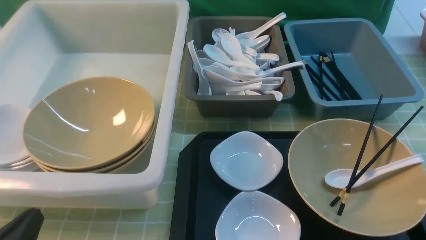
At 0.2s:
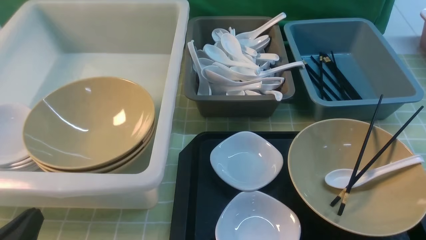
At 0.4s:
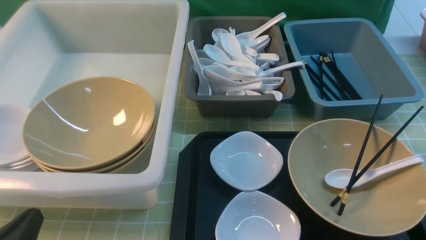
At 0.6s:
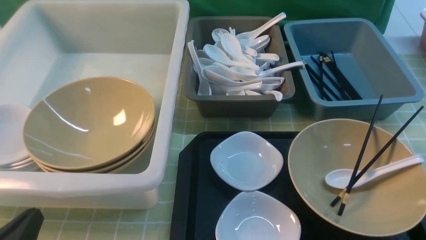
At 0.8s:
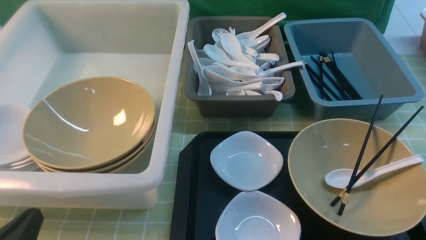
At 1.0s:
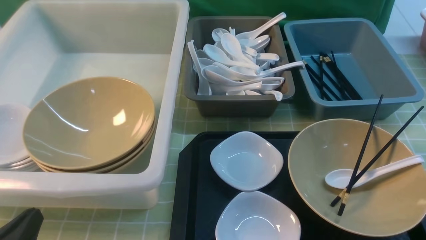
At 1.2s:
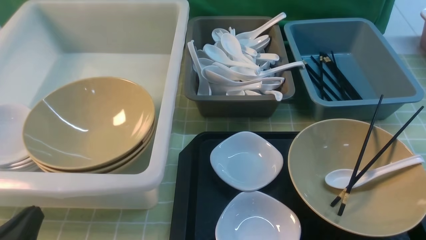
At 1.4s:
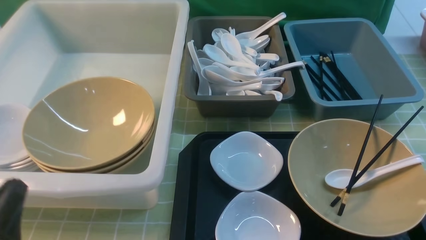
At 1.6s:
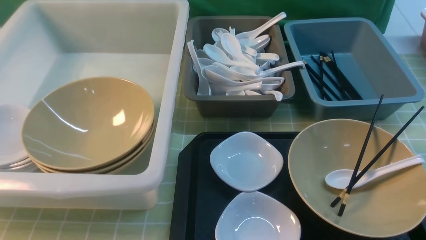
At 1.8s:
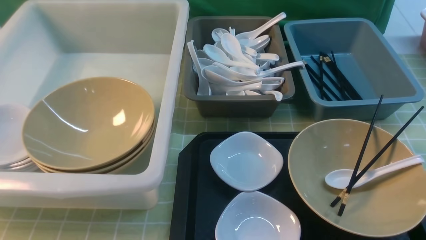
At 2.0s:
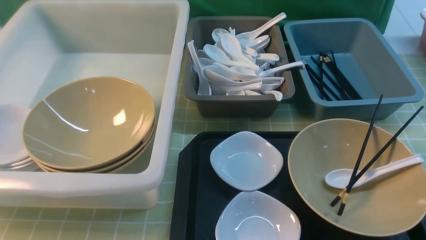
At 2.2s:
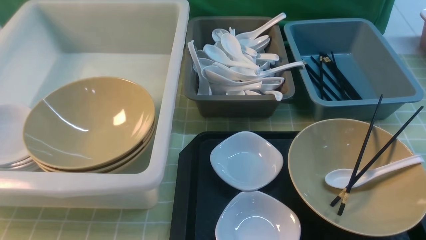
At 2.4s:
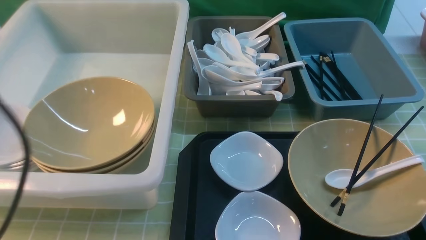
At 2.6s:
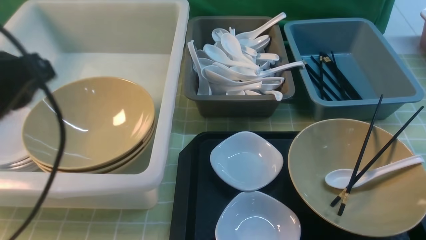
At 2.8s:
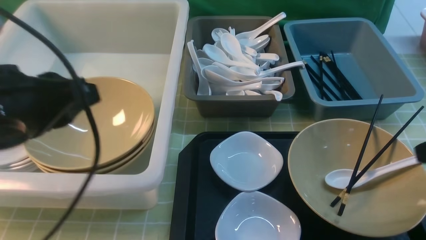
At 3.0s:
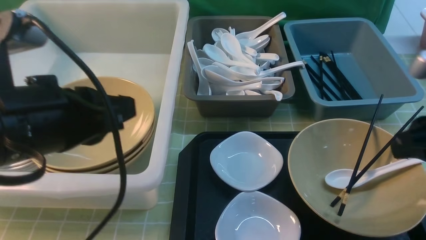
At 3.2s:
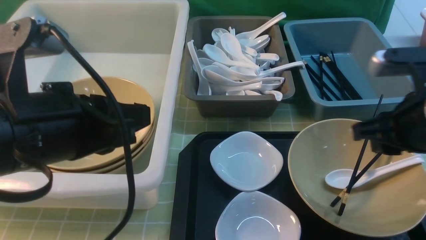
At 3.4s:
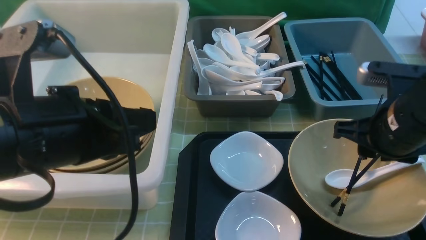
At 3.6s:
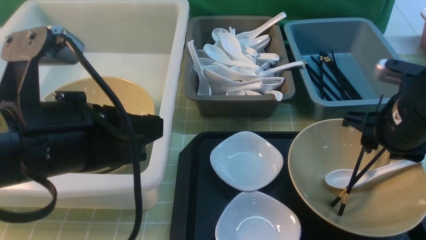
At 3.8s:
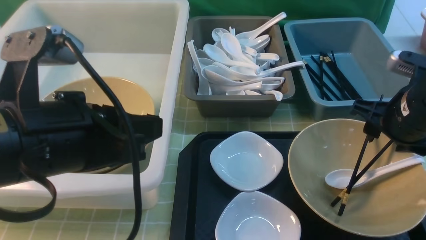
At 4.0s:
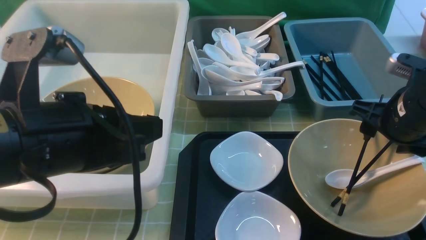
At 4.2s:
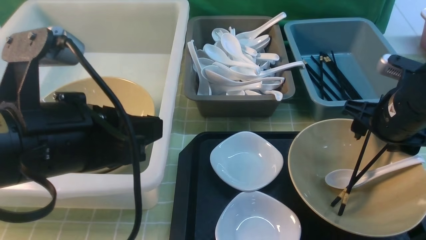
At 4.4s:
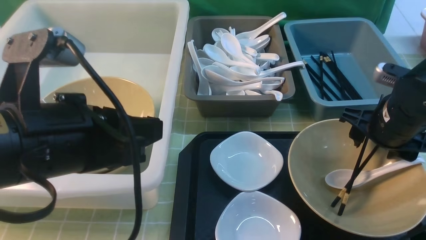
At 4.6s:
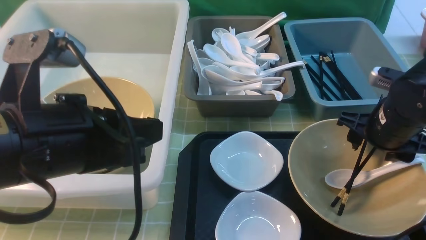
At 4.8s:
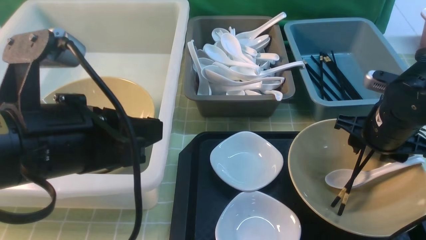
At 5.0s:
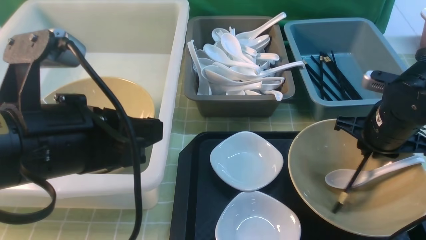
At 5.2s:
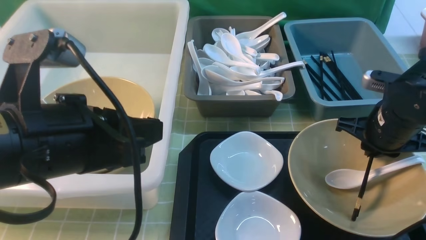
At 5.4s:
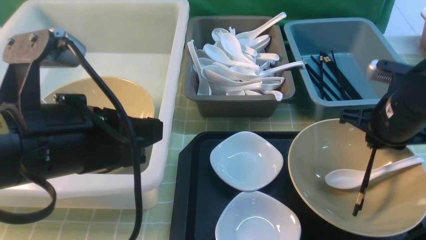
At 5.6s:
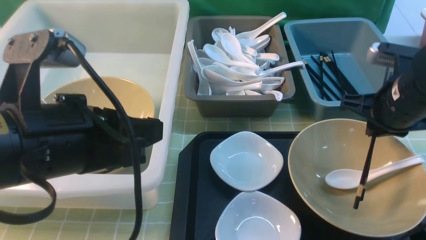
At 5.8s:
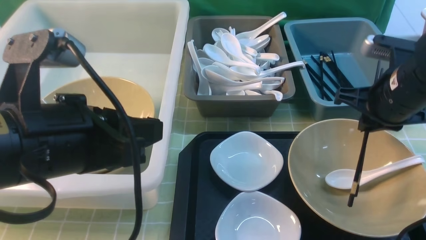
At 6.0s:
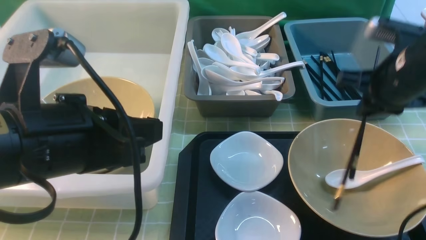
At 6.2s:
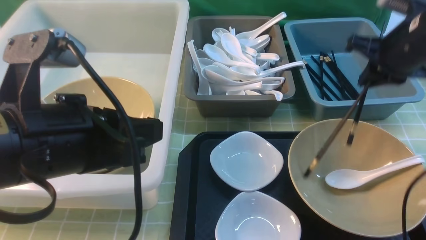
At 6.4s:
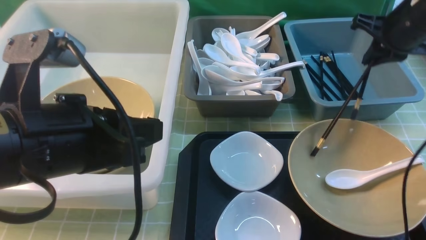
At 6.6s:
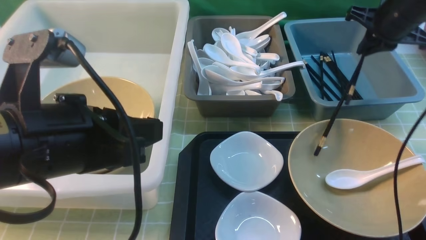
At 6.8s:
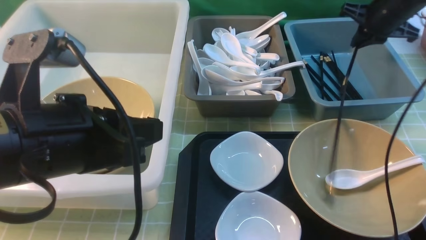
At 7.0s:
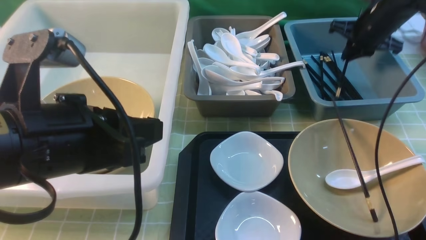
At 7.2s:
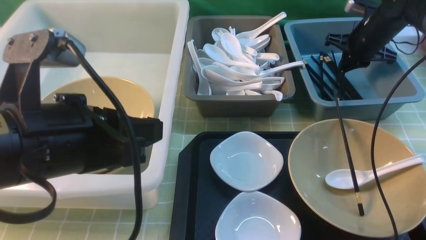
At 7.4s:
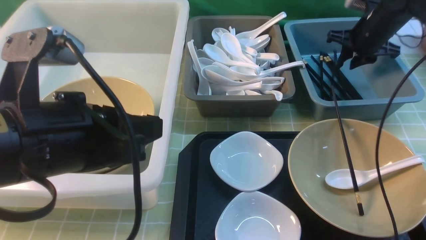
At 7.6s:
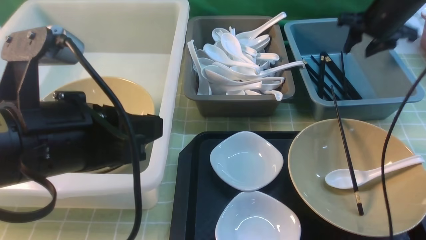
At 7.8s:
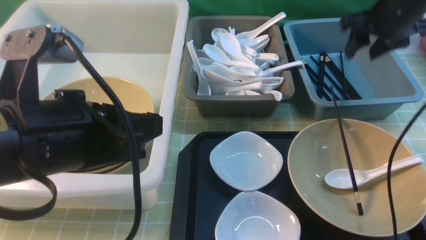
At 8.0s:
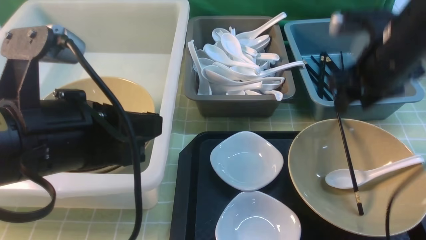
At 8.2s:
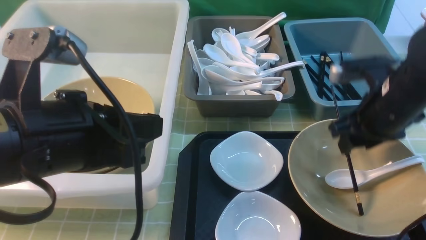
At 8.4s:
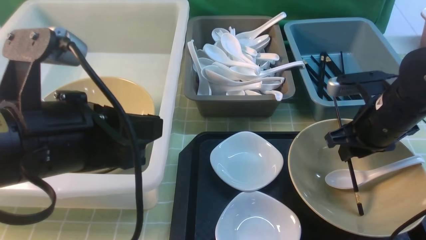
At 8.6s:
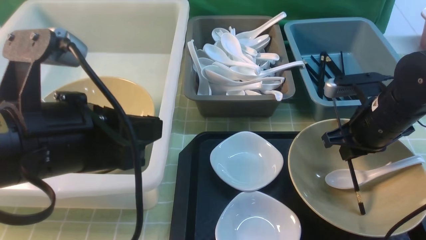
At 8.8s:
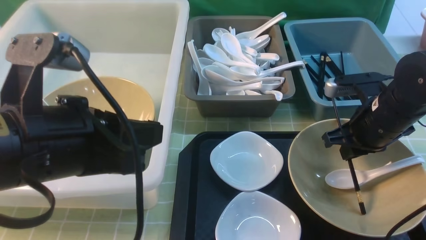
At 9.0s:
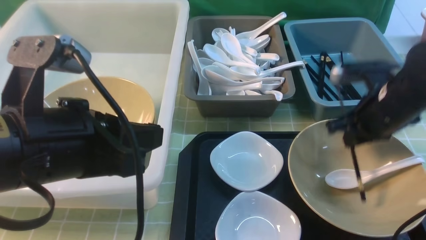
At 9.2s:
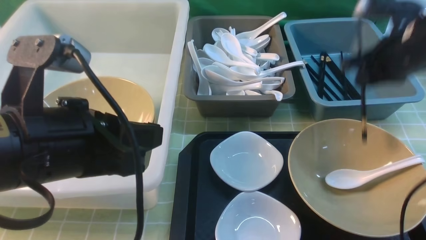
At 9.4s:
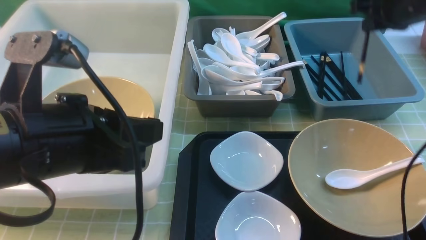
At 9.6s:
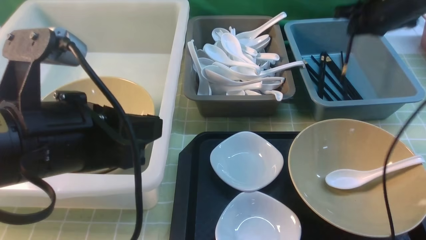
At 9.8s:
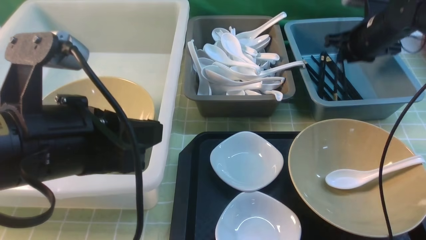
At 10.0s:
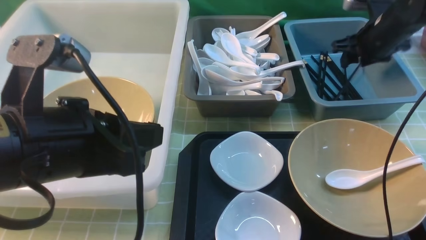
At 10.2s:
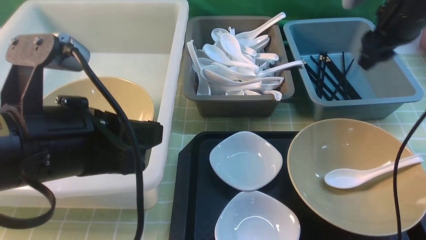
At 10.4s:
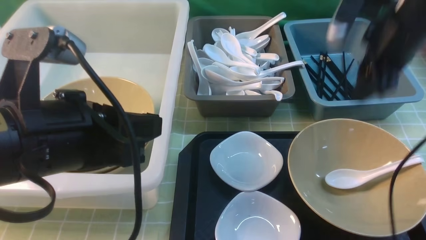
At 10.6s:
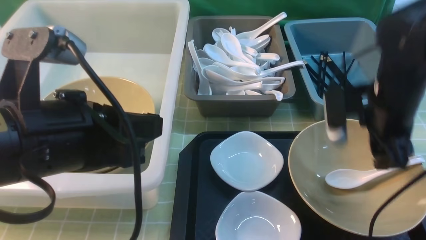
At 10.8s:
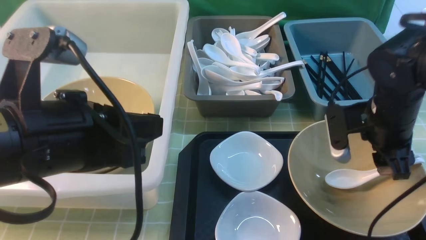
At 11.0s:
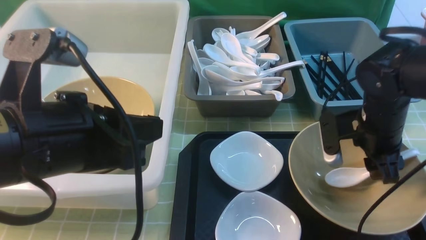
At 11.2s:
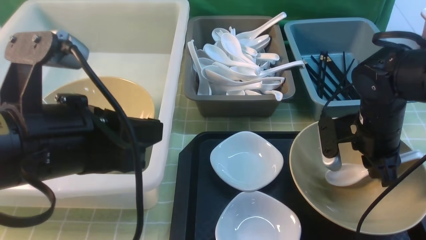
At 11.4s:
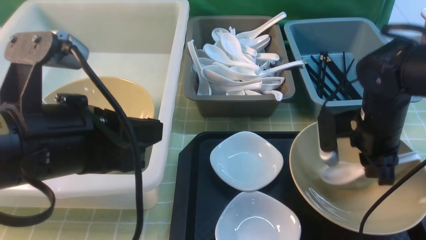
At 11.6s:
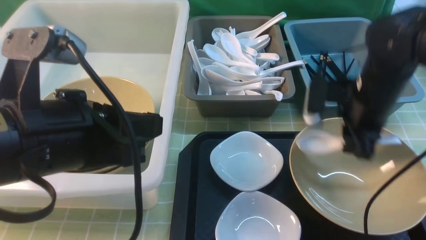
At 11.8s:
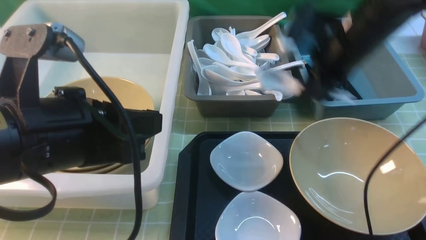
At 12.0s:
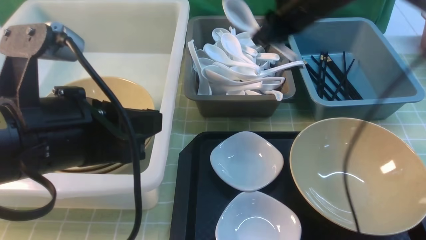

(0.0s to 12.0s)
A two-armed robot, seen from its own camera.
Task of the whole recording: on green table put chopsticks spoon bowls plates into blue grey white boxes.
Step, 0.0s - 5.4s: use the right arm to grab a chopstick.
Step, 5.6s - 7.4s: use the right arm to put a chopstick into the small storage box on the right.
Step, 7.6s - 9.0s: use the right arm to grab a chopstick.
Step, 9.2s - 10.0s: use the right arm to put a chopstick into the small storage box on the right.
Step, 10.4s - 11.4s: use the right arm to grab the soup spoon in the middle.
1.6s - 3.0s: The right gripper travels forward and upward by approximately 20 cm. Meanwhile the left gripper travels upward, forward and to the right by about 20 cm.
3.0s - 4.4s: The right gripper heads forward and downward, covering roughly 15 cm, and opens its fingers.
4.4s - 6.0s: The right gripper heads upward, covering some 5 cm, and closes up.
6.0s - 7.6s: The right gripper travels forward by roughly 20 cm, and opens its fingers.
7.6s - 9.0s: The right gripper travels backward by some 15 cm, and closes its fingers.
9.0s - 10.4s: The right gripper is displaced upward and forward by some 10 cm, and opens its fingers.
10.4s - 12.0s: The right gripper goes about 10 cm to the left, goes downward and returns, some 10 cm each way, and closes.

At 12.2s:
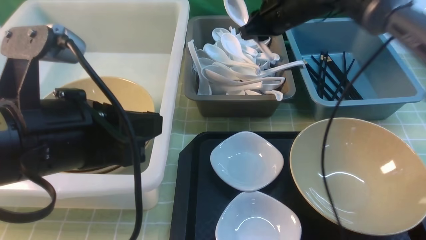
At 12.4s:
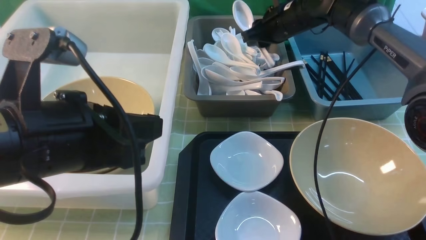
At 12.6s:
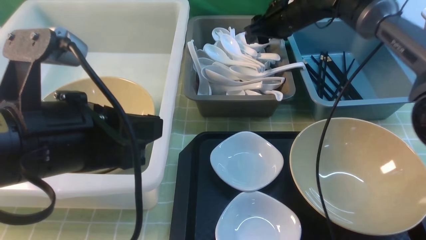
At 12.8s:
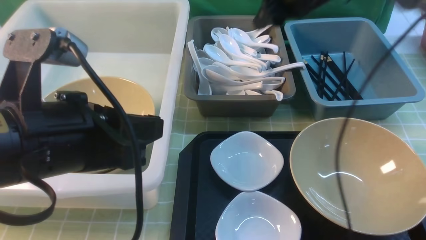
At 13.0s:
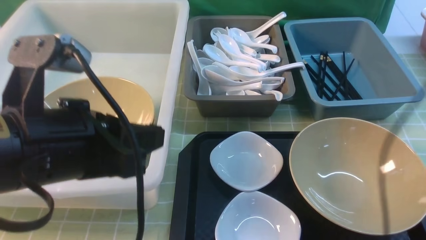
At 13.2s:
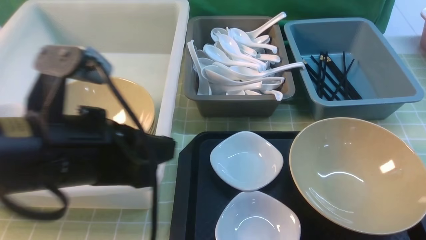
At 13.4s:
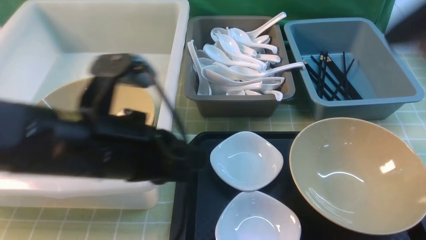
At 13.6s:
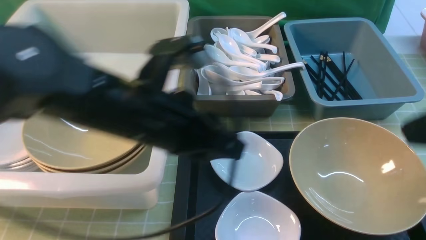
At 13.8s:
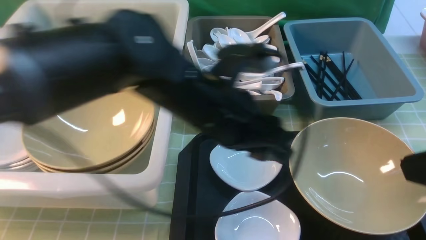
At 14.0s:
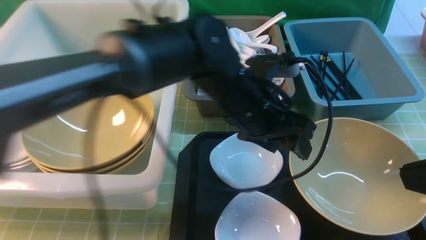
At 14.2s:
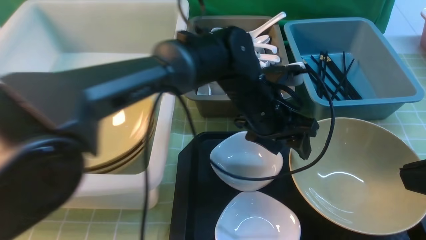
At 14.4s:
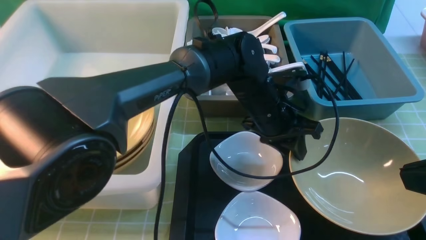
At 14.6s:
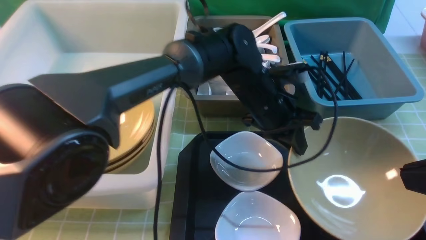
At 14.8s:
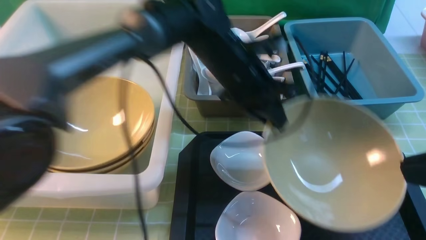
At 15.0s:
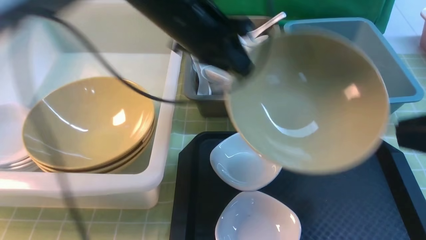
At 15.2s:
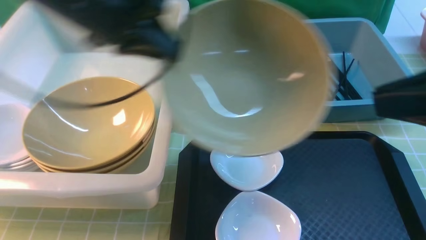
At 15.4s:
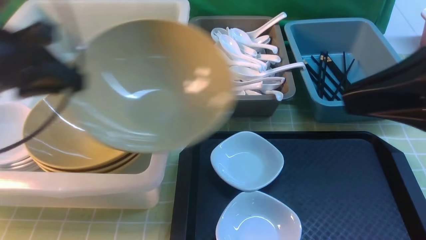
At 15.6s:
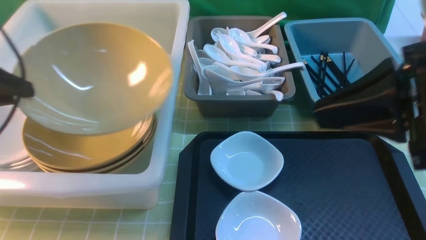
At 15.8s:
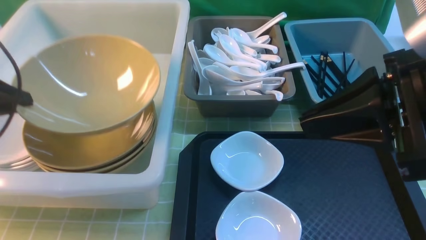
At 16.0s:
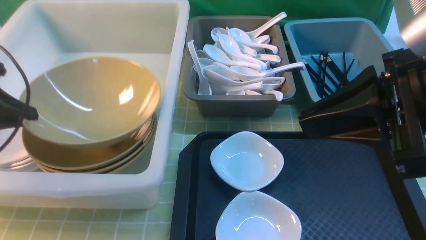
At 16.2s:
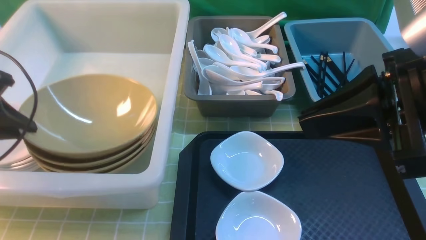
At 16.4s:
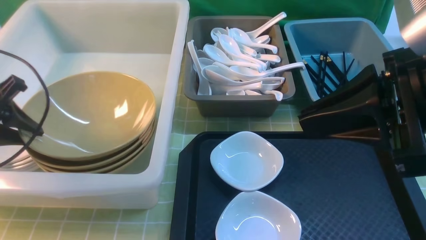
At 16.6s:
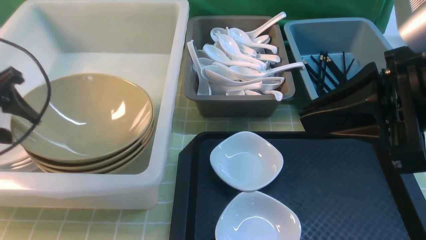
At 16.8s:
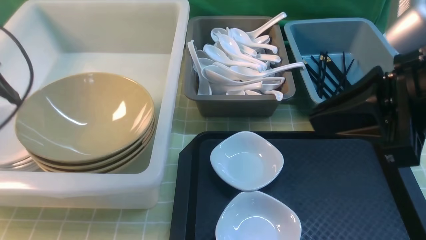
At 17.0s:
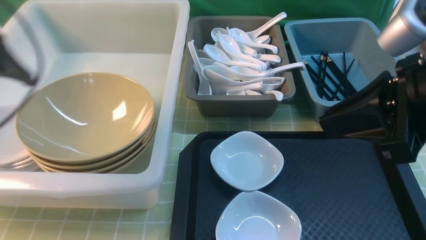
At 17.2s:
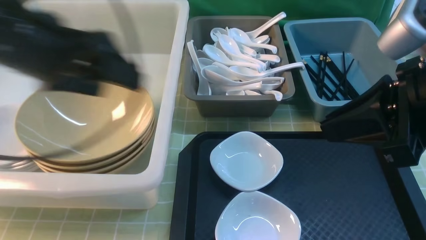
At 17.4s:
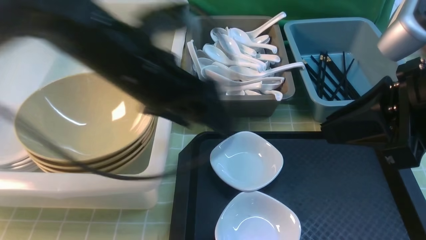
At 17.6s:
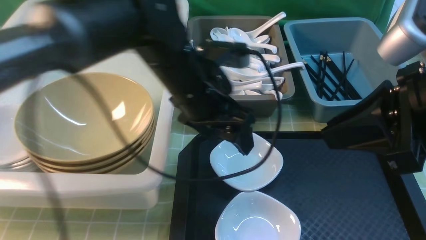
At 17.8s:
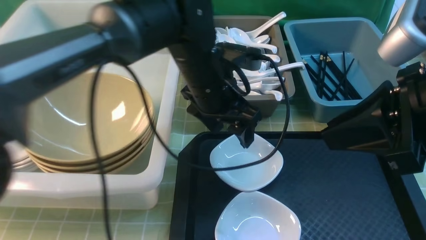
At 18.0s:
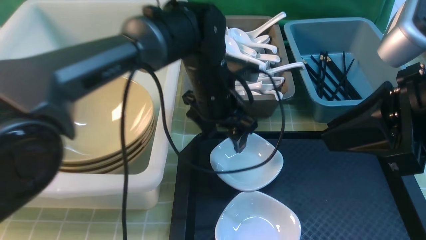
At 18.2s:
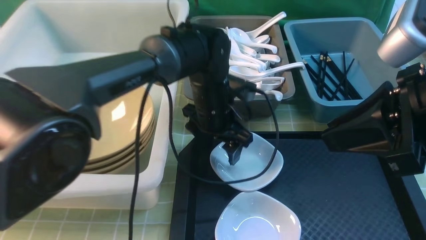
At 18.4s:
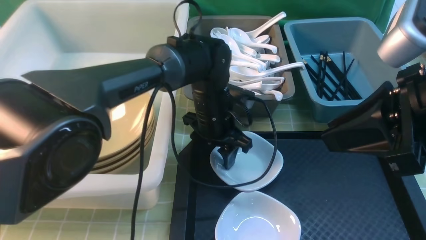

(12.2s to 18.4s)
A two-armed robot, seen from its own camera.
Task of the whole recording: on green table put chopsticks spoon bowls plates into blue grey white boxes.
Step, 12.6s - 15.0s: use the left arm to grab the yellow noodle bowl on the left.
Step, 15.2s - 16.6s: use the left arm to put the noodle bowl into the large storage box on the left.
12.2s - 13.8s: The left gripper is displaced to the right and forward by roughly 15 cm, and opens up, while the right gripper shifts some 35 cm backward, and opens, then closes again.
13.8s - 15.4s: The left gripper travels to the left by roughly 20 cm, and closes up.
15.4s - 16.8s: The left gripper is displaced to the left by approximately 10 cm, and opens up.
16.8s - 18.4s: The left gripper shifts some 35 cm to the right and downward.
